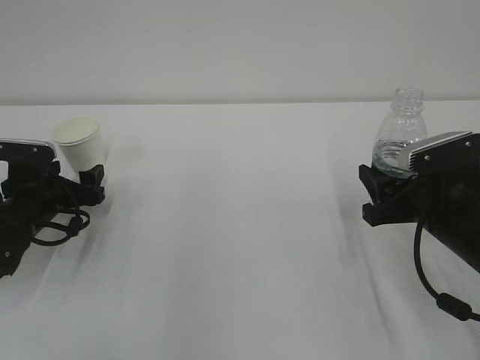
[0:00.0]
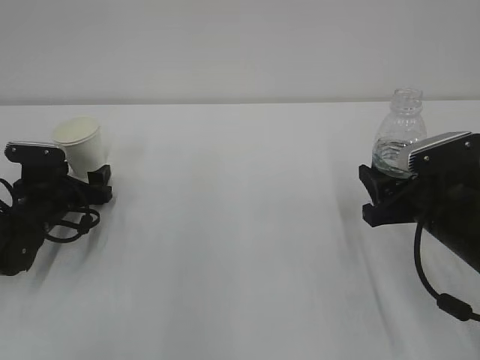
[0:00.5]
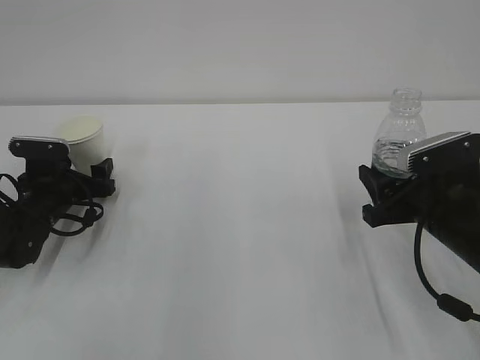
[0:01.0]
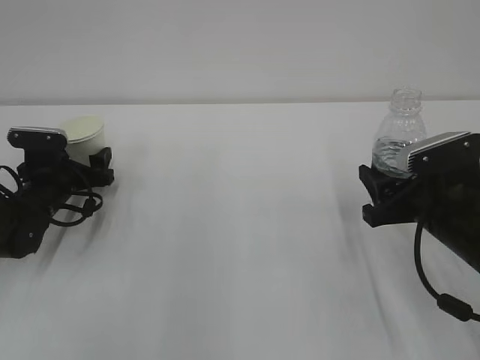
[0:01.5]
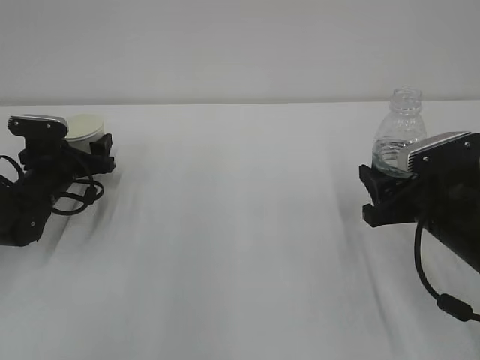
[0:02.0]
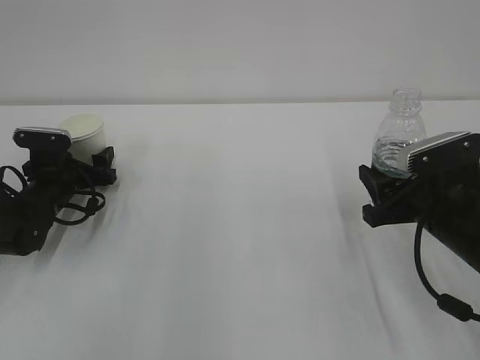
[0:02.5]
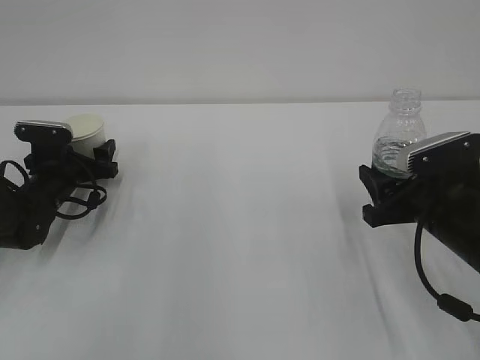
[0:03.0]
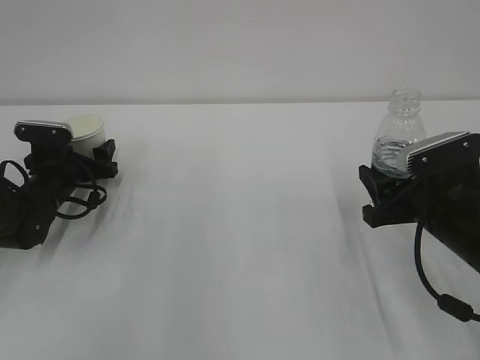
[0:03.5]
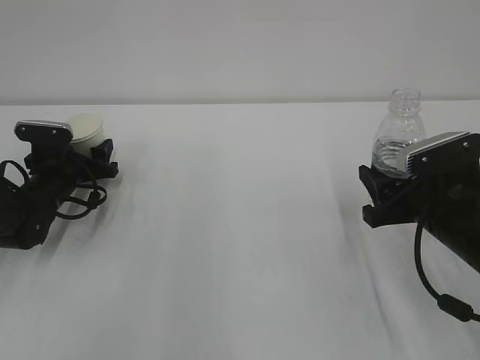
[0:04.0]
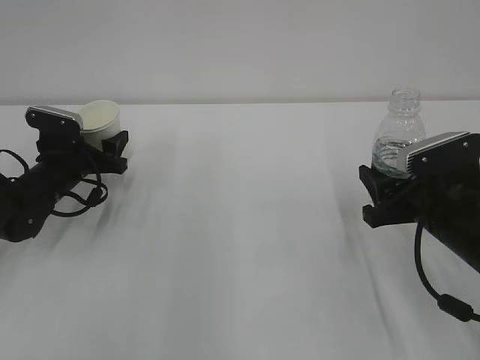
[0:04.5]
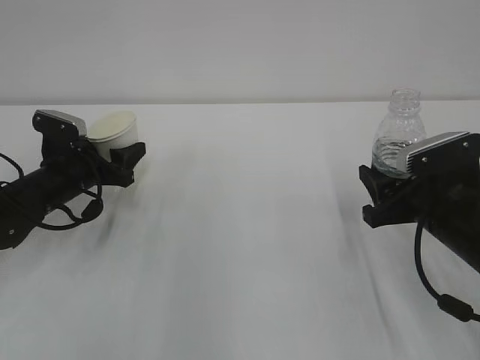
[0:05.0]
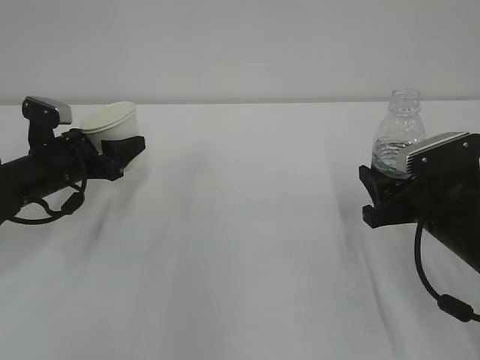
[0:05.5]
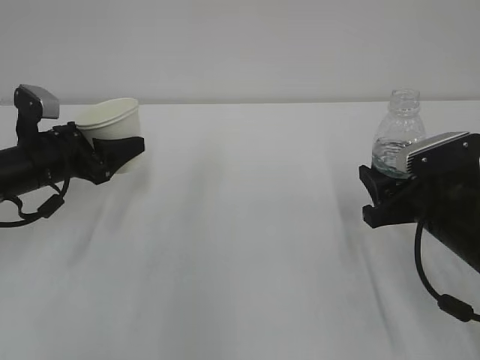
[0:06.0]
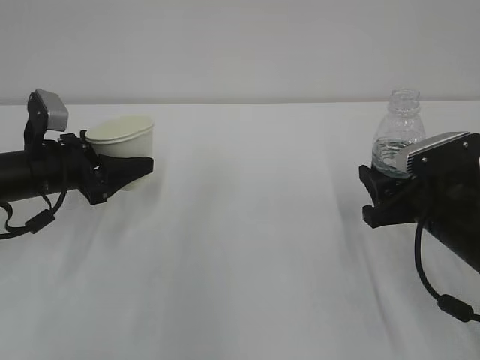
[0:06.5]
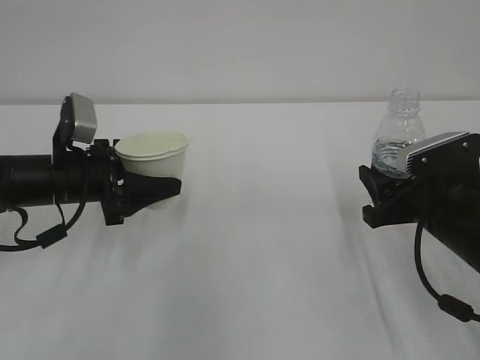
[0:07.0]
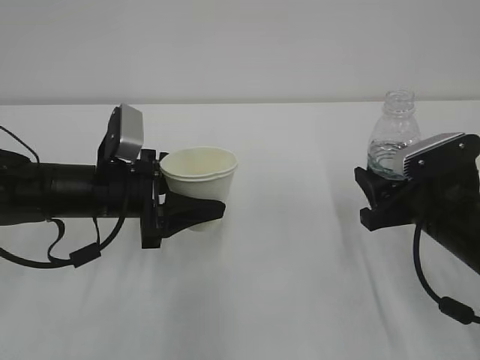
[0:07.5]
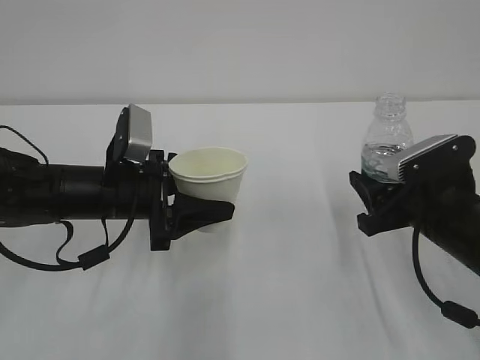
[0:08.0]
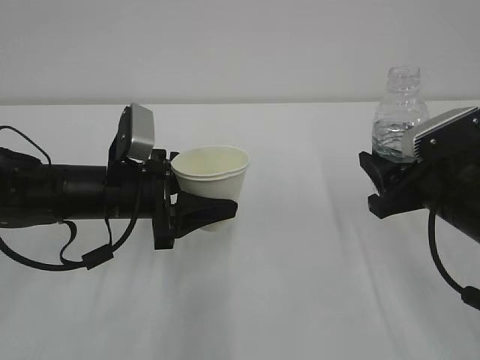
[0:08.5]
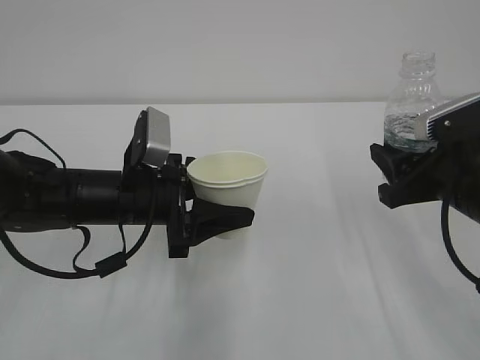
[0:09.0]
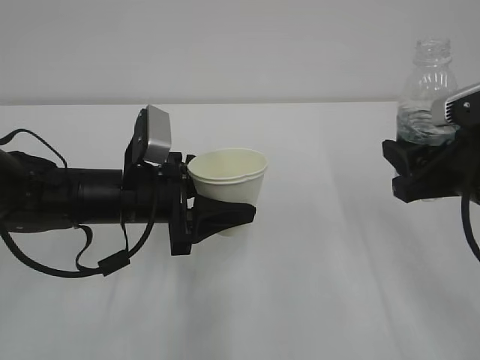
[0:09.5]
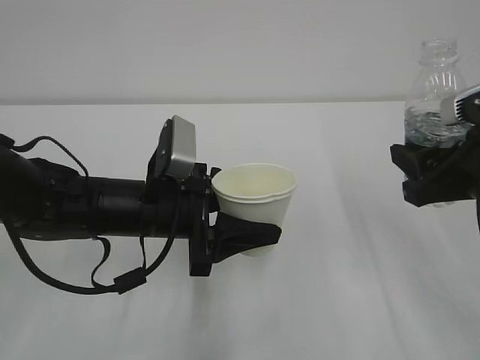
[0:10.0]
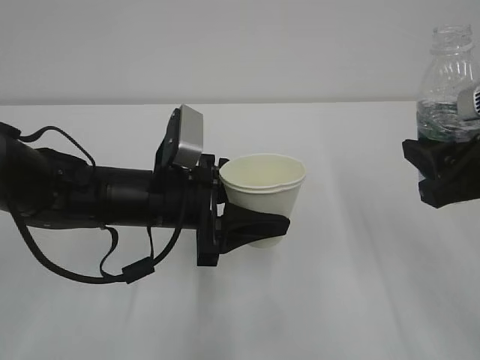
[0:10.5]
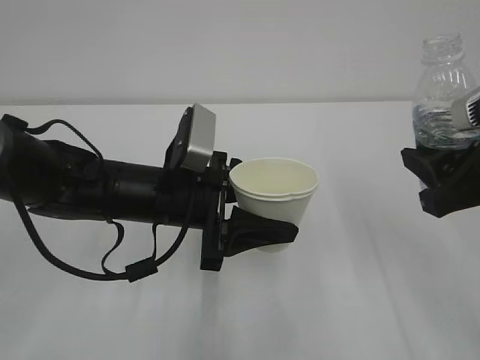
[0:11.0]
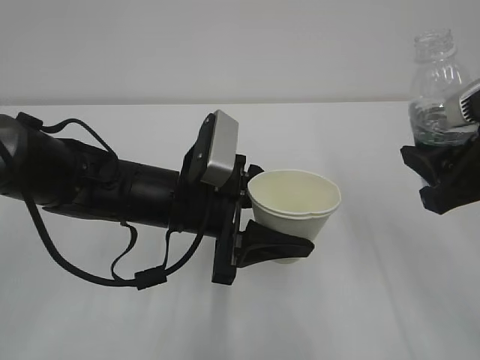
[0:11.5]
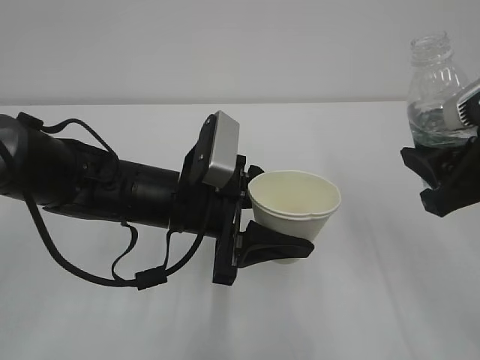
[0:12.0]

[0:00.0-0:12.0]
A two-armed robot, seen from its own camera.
0:00.0 to 0:02.0: The left gripper shifts approximately 5 cm forward.
0:02.0 to 0:04.0: The grippers stay close to where they were, moving slightly.
0:04.0 to 0:06.0: The left gripper travels upward and backward by roughly 10 cm.
0:06.0 to 0:08.0: The left gripper travels to the right and backward by roughly 15 cm.
0:08.0 to 0:10.0: The right gripper moves upward, some 10 cm. The left gripper moves about 5 cm.
0:10.0 to 0:12.0: The grippers make only small movements.

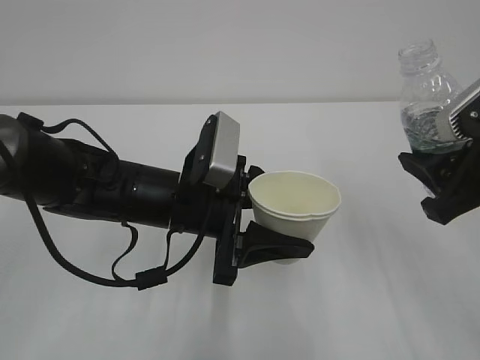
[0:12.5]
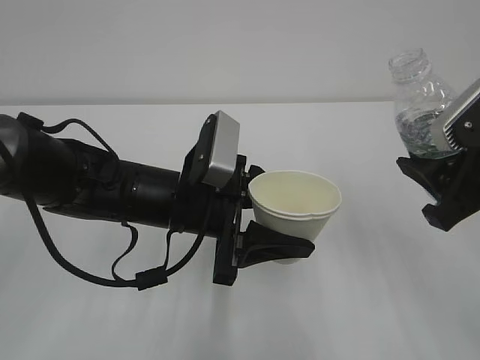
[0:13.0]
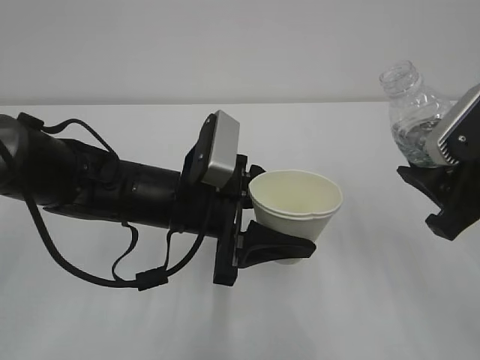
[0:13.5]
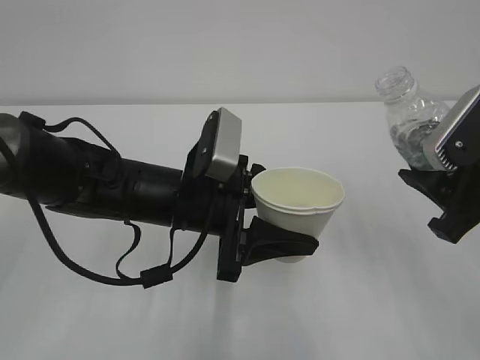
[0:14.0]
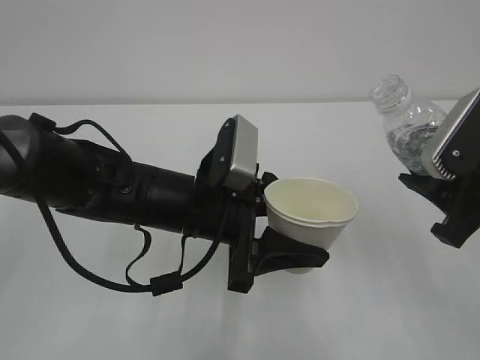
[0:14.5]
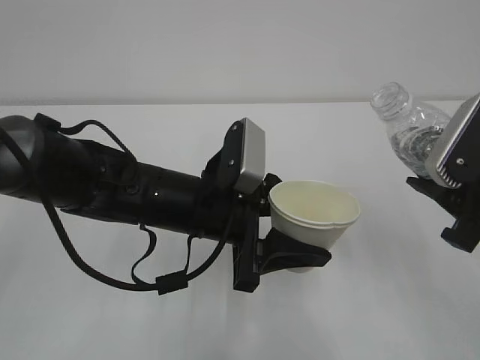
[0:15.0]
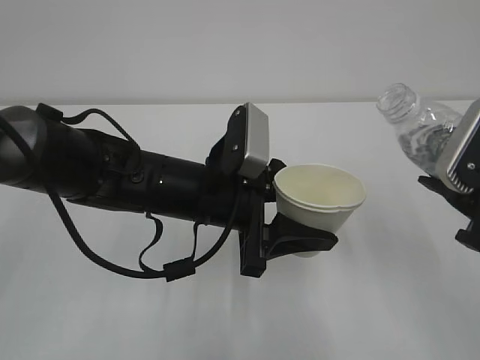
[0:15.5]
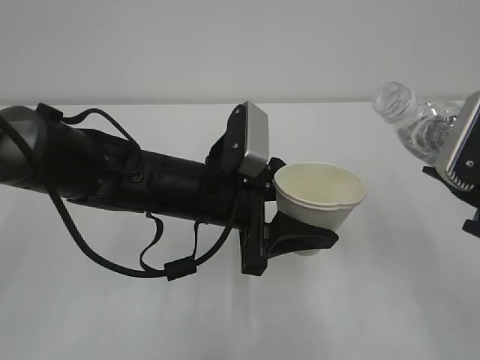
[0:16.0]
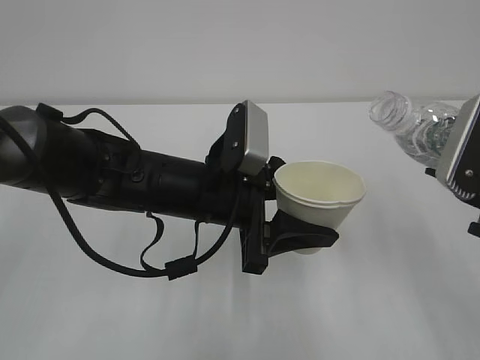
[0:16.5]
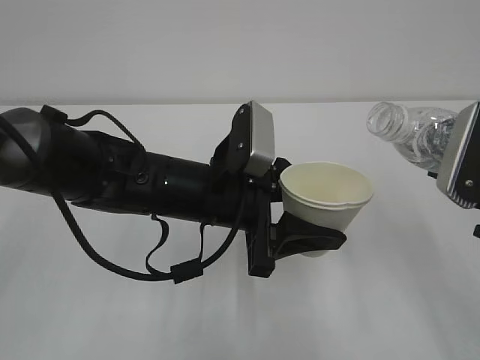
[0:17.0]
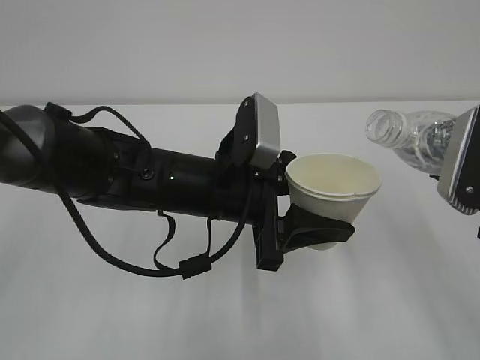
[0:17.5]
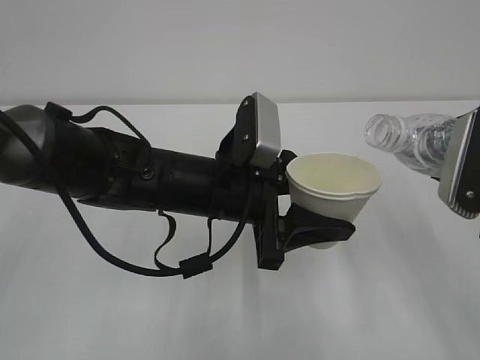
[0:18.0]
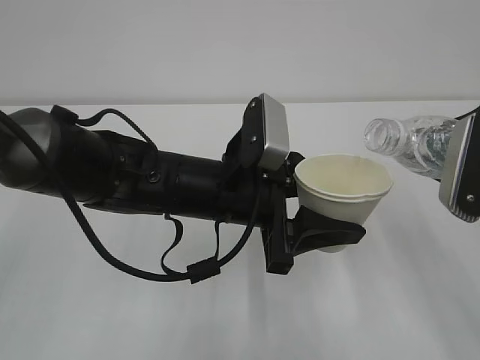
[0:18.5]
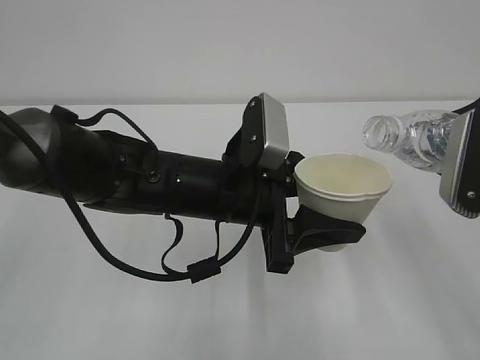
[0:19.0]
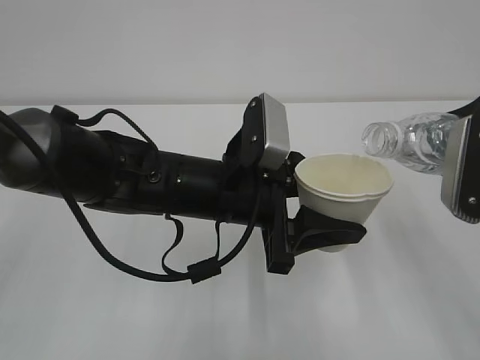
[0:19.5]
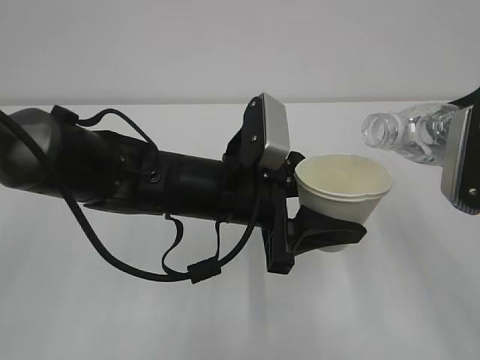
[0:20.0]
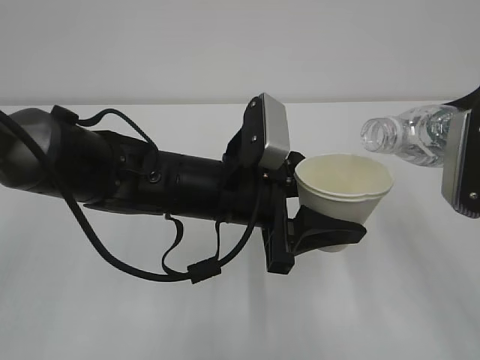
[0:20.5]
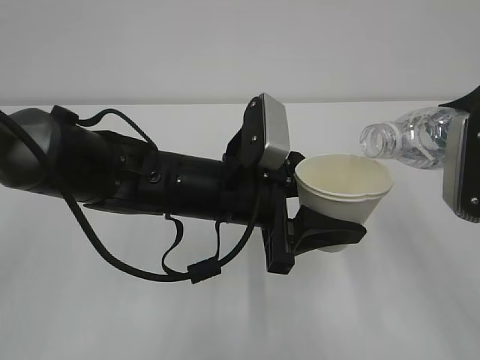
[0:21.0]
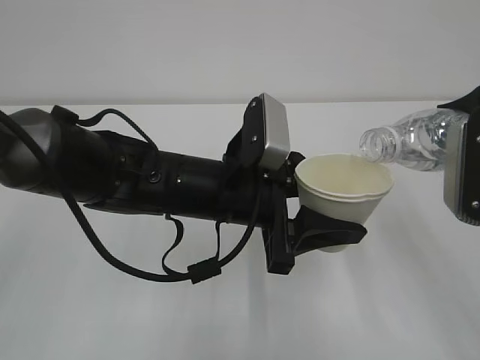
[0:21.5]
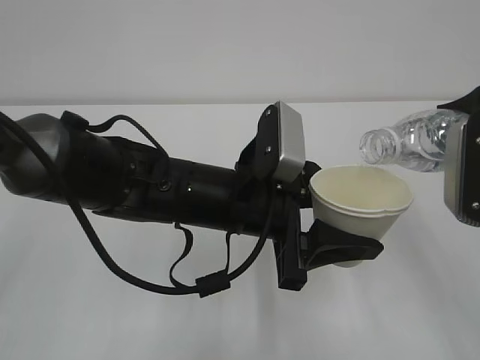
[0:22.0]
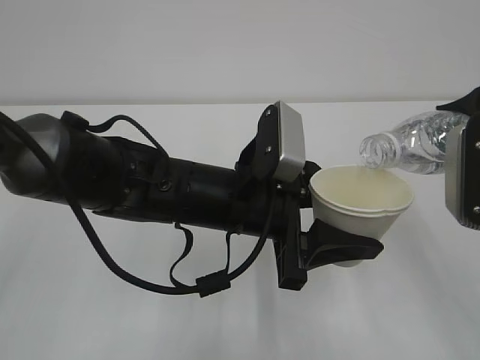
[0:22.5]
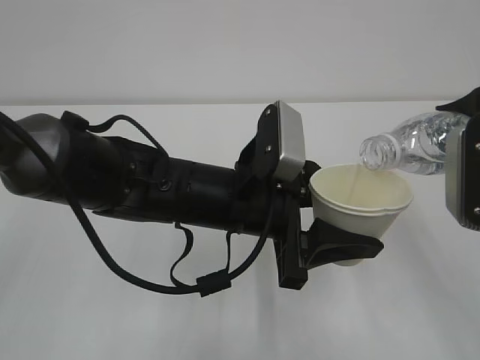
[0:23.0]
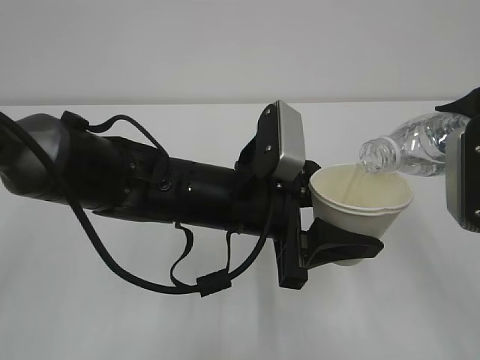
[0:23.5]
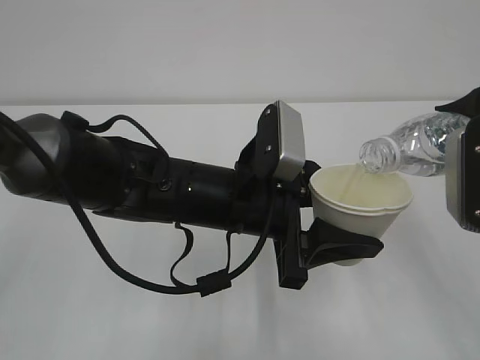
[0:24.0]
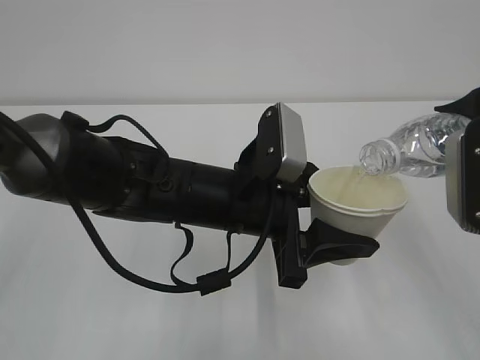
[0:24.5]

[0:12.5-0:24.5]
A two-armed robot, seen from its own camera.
0:12.5 to 0:14.5: The grippers make only small movements.
0:14.5 to 0:16.5: The grippers move only a little.
0:16.5 to 0:20.5: The grippers stay close to where they were, moving slightly.
0:20.5 to 0:22.5: There are only small adjustments of the grippers.
0:22.5 to 0:24.5: The two grippers keep their place.

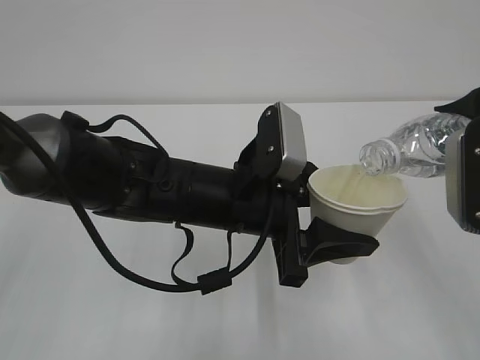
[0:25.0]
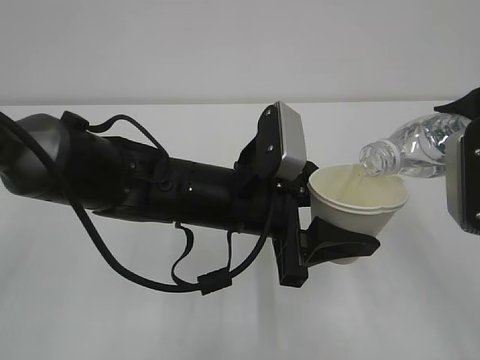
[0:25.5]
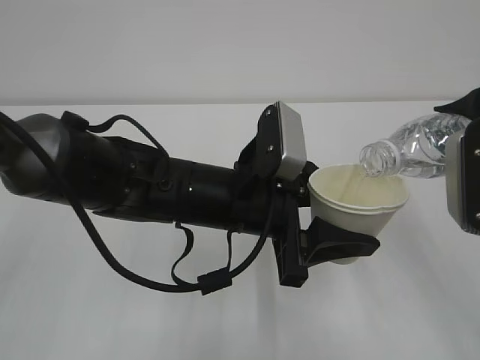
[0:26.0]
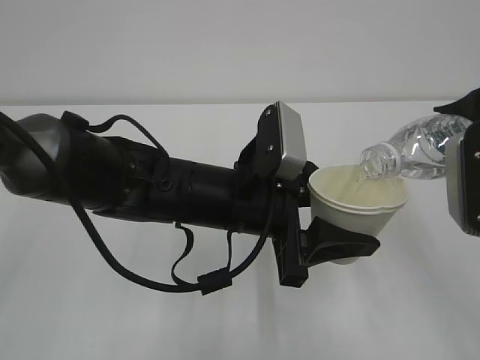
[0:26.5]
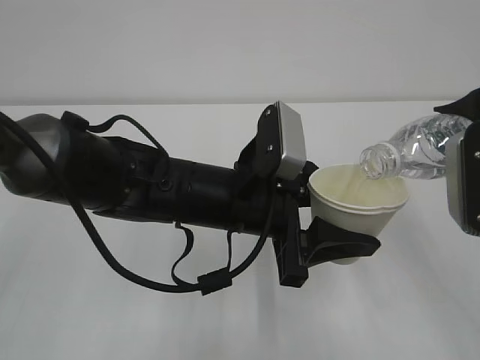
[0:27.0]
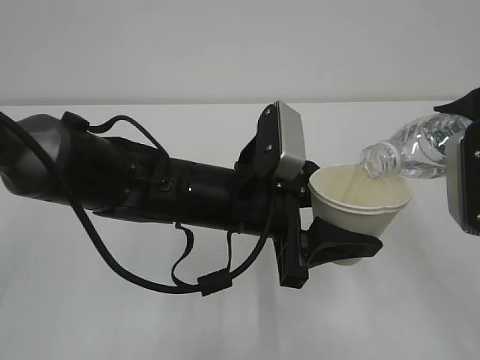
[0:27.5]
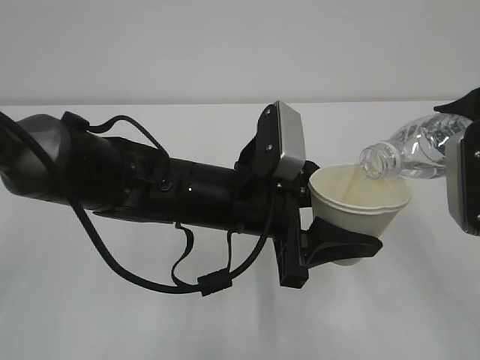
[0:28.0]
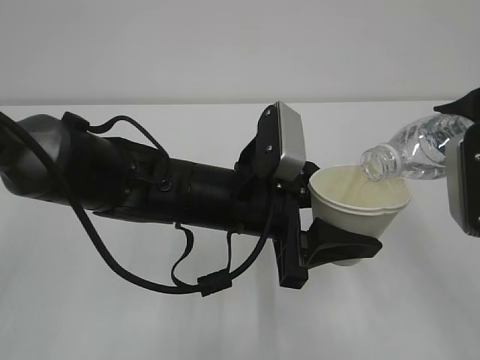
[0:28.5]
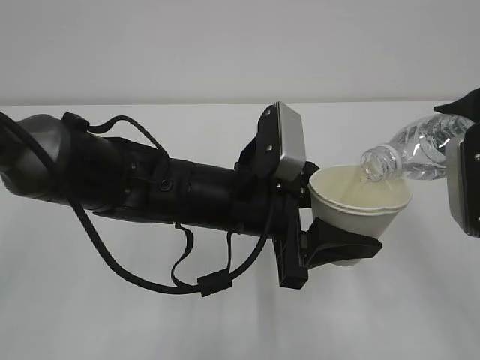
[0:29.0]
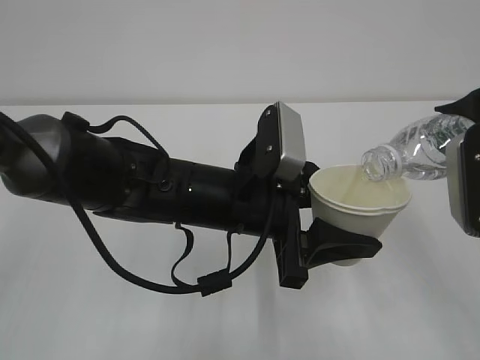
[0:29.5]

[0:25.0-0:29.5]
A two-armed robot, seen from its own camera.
0:25.0 to 0:29.5: The two grippers keep their place.
